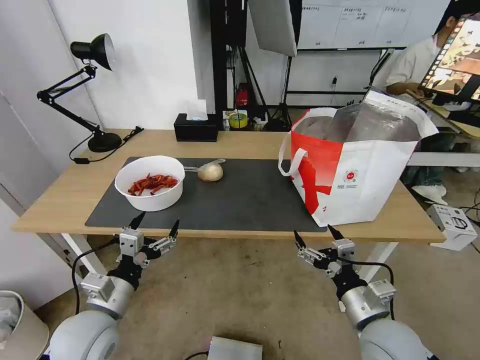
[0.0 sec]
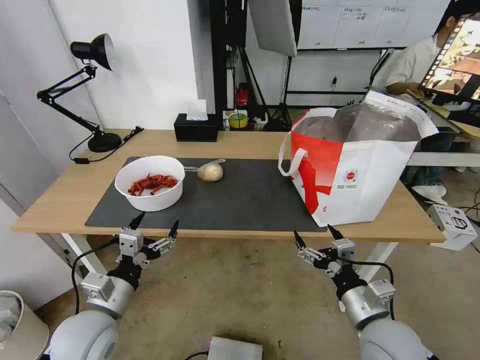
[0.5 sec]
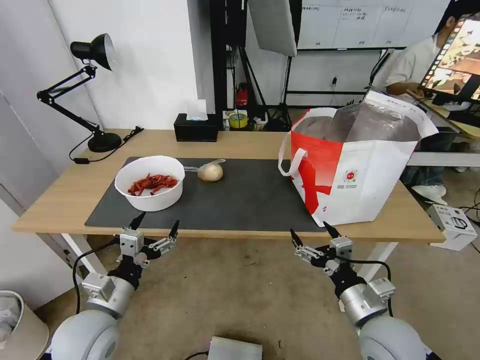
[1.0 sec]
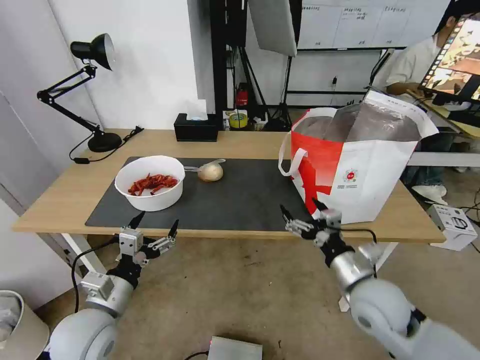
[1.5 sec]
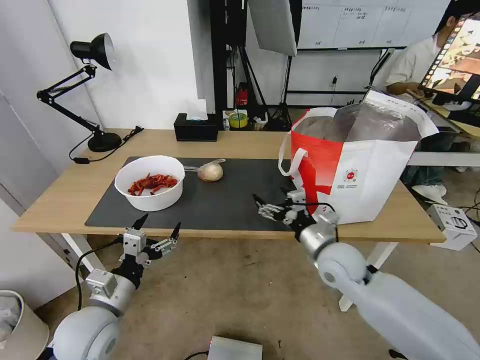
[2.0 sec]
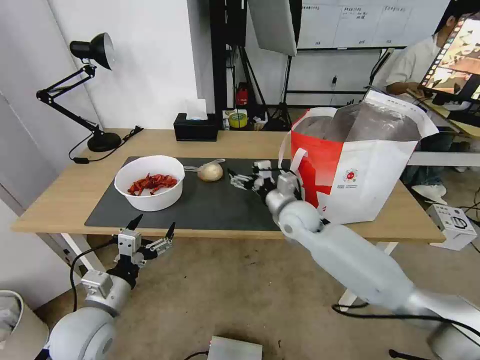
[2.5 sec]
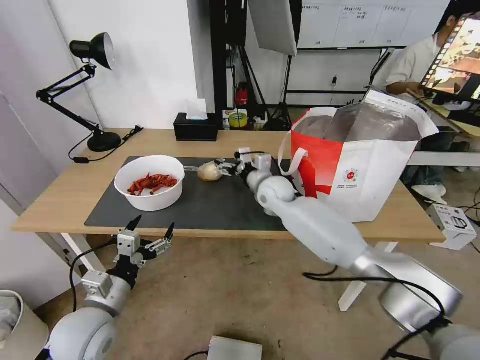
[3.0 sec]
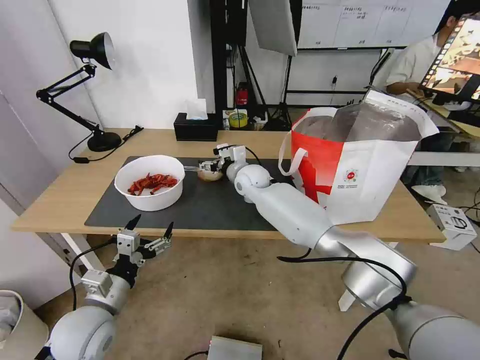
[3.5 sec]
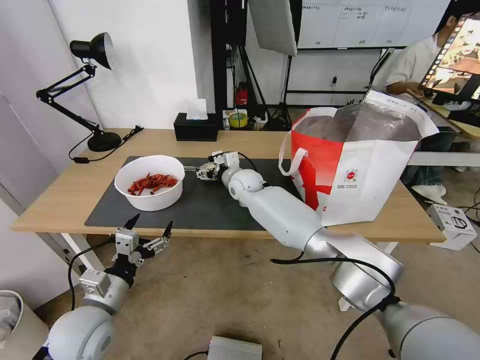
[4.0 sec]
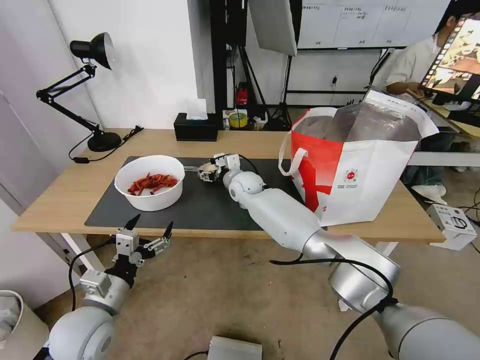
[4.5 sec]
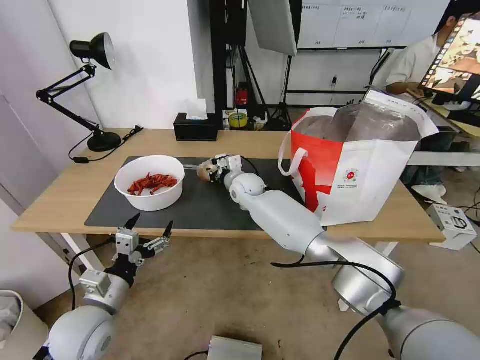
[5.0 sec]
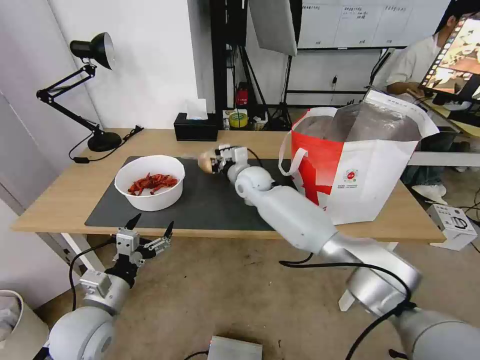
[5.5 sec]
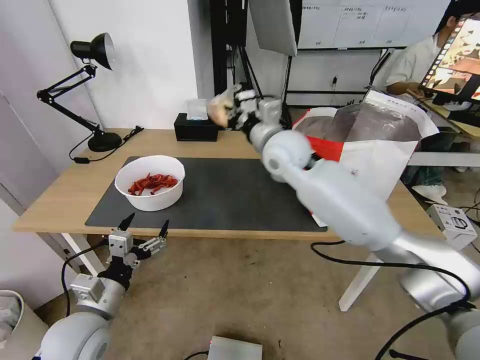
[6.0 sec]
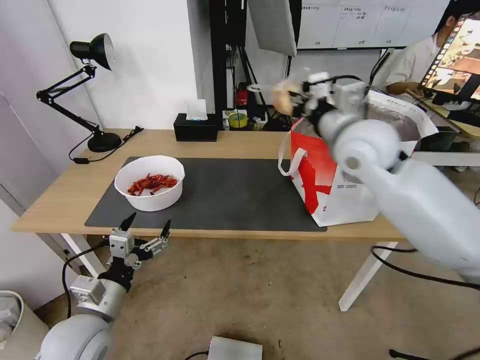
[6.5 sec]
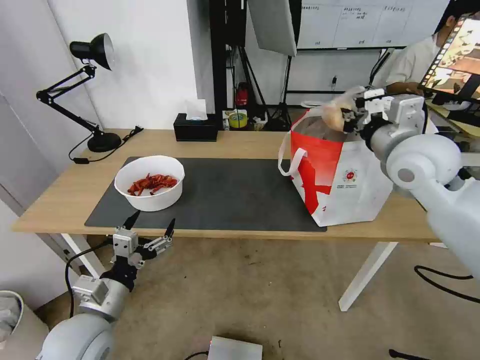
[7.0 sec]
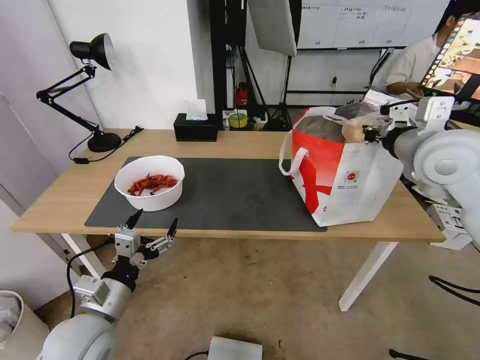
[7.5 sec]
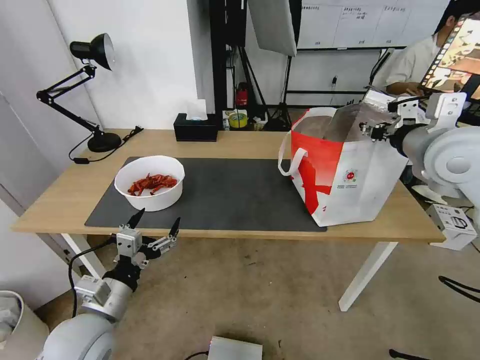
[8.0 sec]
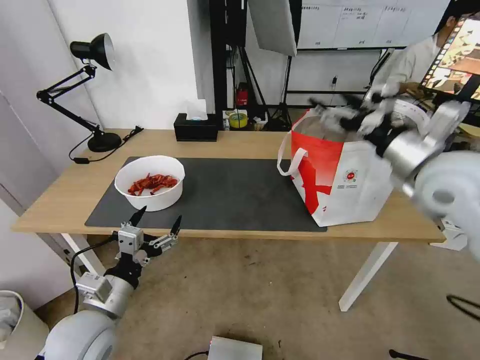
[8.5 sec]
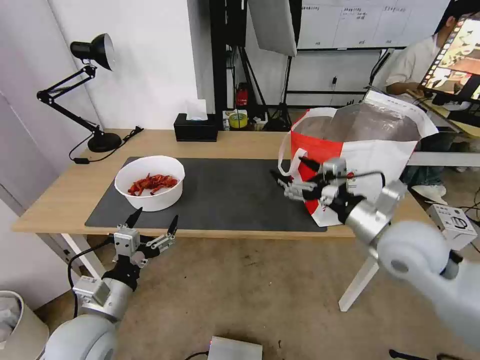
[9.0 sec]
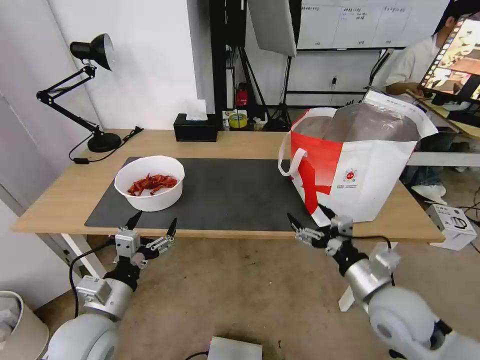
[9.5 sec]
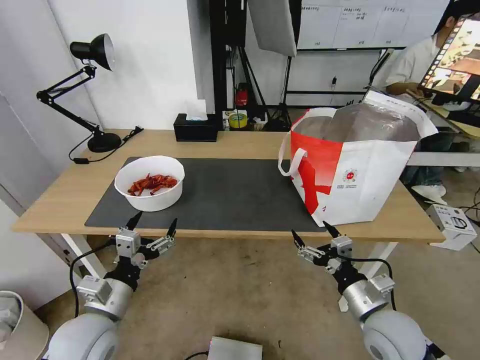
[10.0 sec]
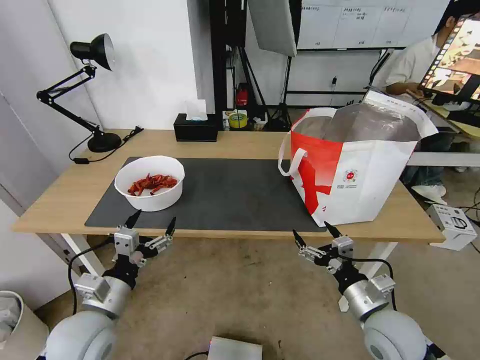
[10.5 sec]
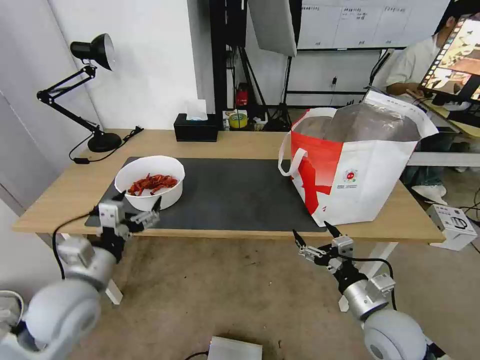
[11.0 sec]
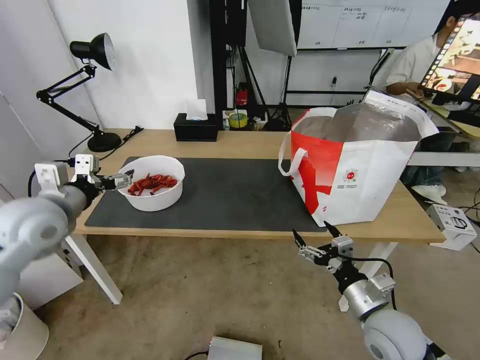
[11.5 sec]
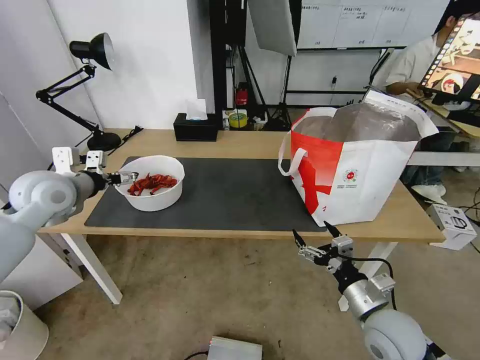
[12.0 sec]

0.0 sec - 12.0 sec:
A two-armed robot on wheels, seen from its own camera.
Task of the whole recording: Pick up the trash from the table and place it into the takeout bag.
0.0 sec - 2.0 sec: The right gripper goes approximately 15 cm forward.
2.0 sec - 4.0 sec: The right gripper heads forward and to the left, covering approximately 30 cm.
4.0 sec - 6.0 sec: The right gripper heads upward, backward and to the right, covering roughly 20 cm, and closes up.
6.0 sec - 8.0 sec: The right gripper heads to the right and backward, covering some 25 cm, and opens its fingers.
8.0 sec - 10.0 sec: The right gripper moves downward and backward, approximately 35 cm, and opens.
10.0 sec - 12.0 sec: The left gripper heads forward, upward and to the left, covering roughly 30 cm.

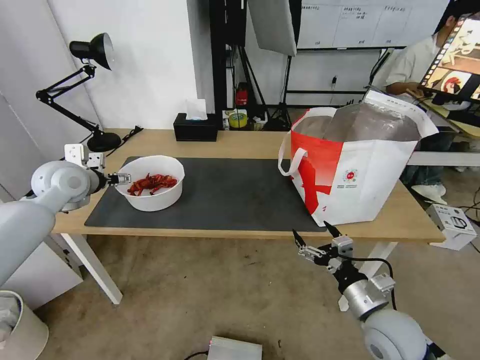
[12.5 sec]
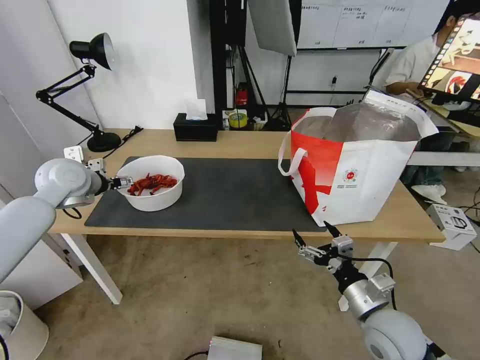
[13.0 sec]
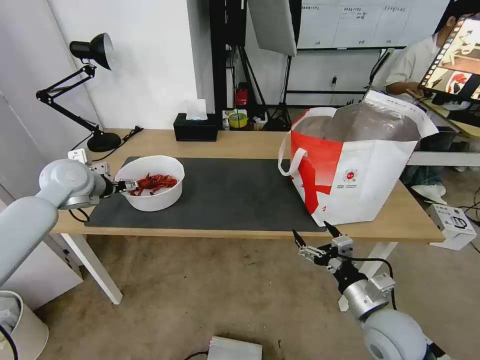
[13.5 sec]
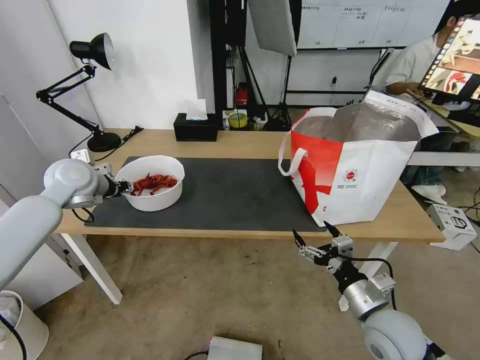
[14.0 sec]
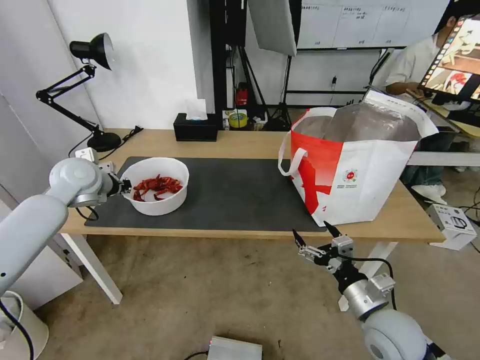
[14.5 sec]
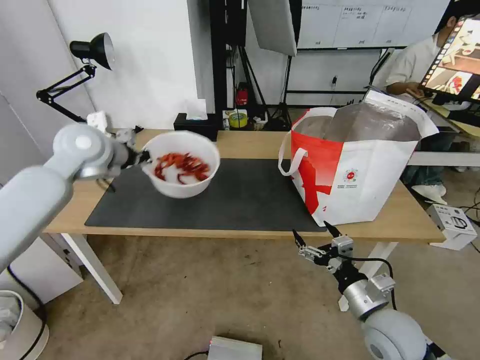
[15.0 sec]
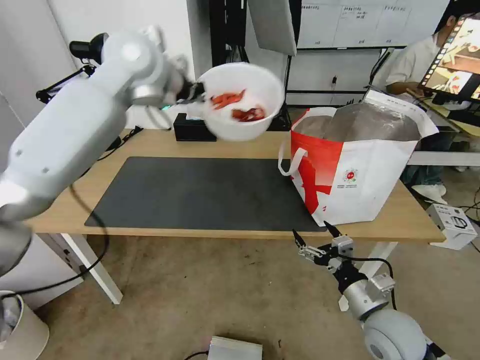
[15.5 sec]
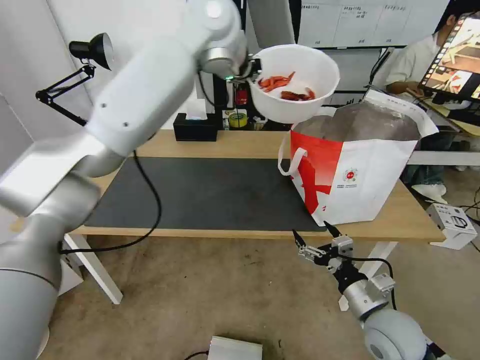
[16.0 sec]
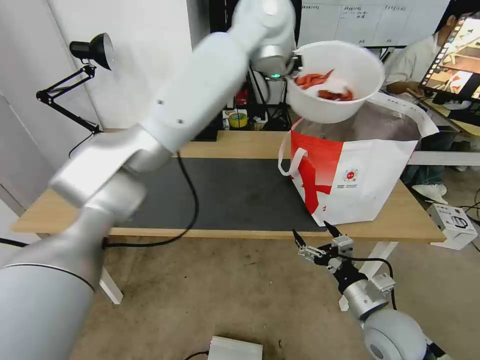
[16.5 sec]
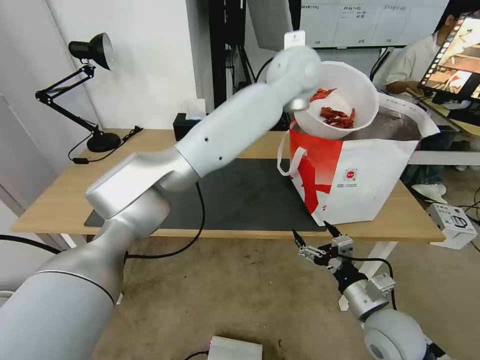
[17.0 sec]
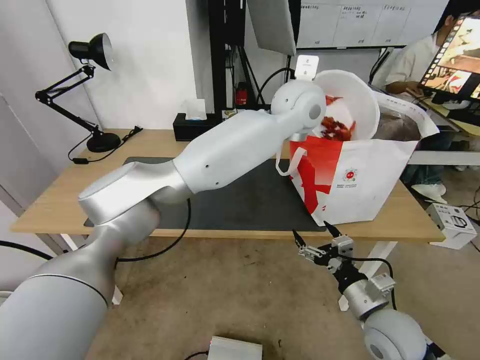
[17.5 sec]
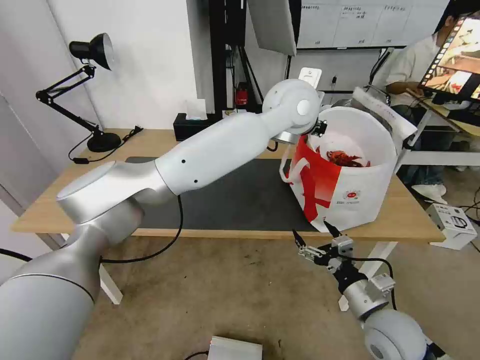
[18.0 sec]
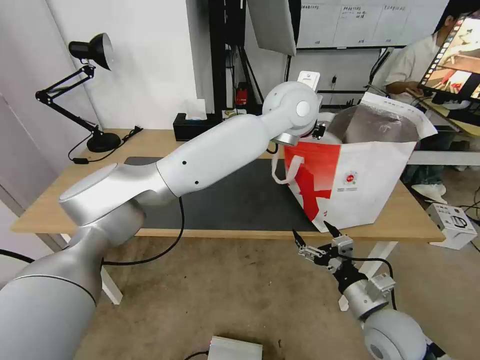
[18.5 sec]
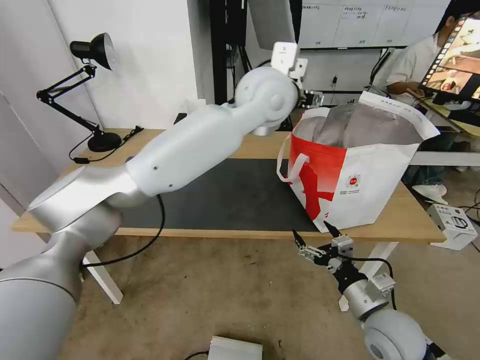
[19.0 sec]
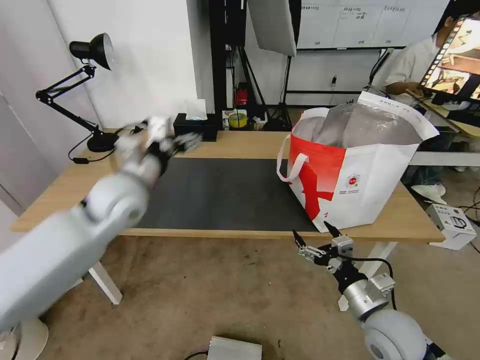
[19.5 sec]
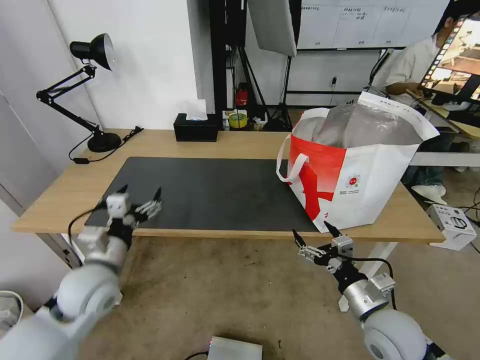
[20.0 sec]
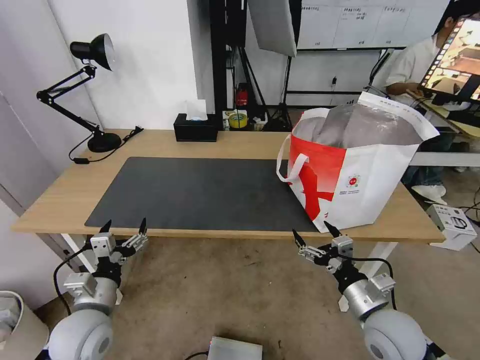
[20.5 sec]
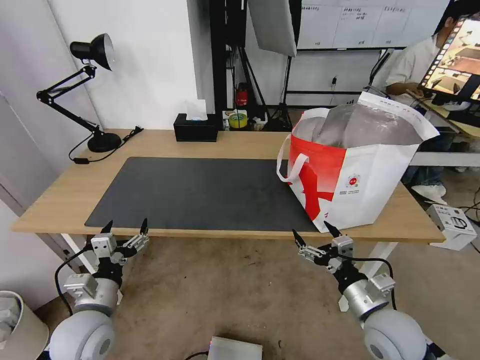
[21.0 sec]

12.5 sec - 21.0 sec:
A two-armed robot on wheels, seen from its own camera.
Task of the whole recording: Pick up the trash from the table and place it into the takeout bag.
12.5 sec - 14.5 sec: The left gripper closes.
14.5 sec - 16.5 sec: The left gripper travels to the right and upward by some 50 cm.
16.5 sec - 19.0 sec: The left gripper travels downward and backward by some 10 cm, and opens.
19.0 sec - 21.0 sec: The left gripper is displaced downward, to the left and backward by about 50 cm.

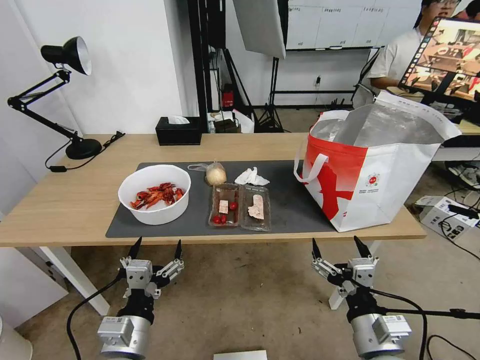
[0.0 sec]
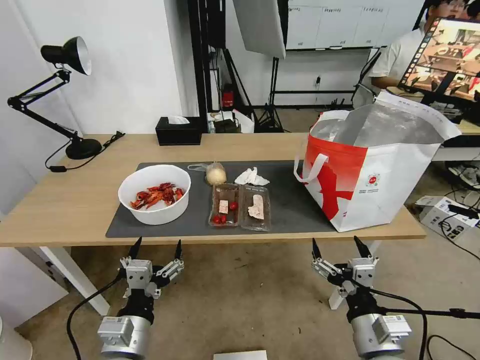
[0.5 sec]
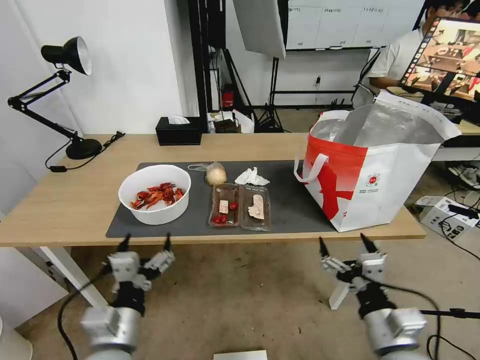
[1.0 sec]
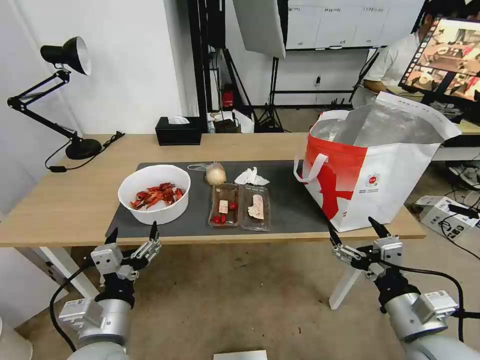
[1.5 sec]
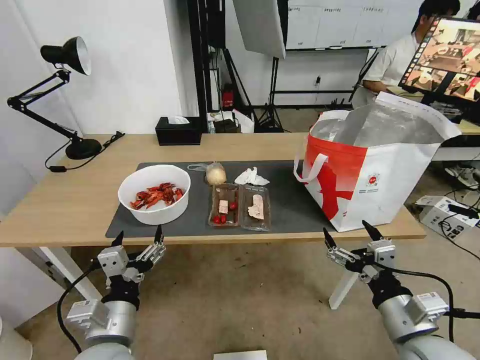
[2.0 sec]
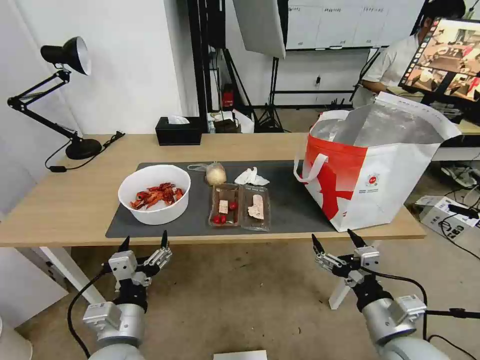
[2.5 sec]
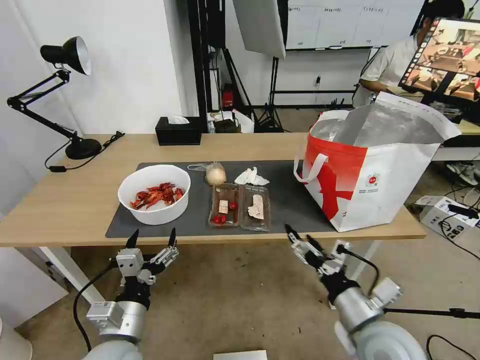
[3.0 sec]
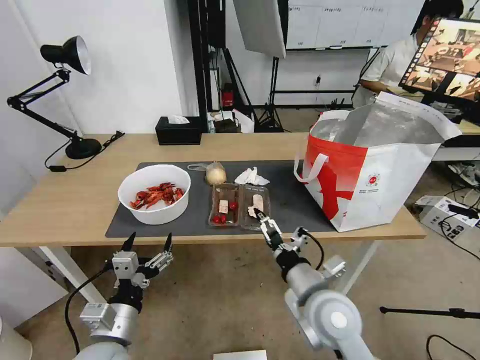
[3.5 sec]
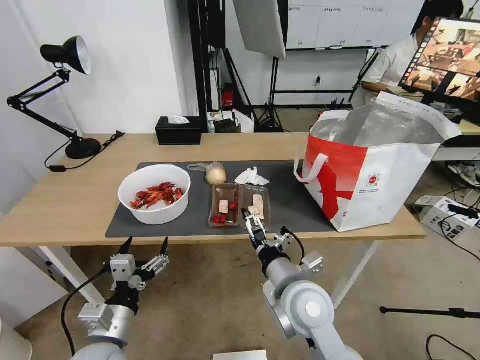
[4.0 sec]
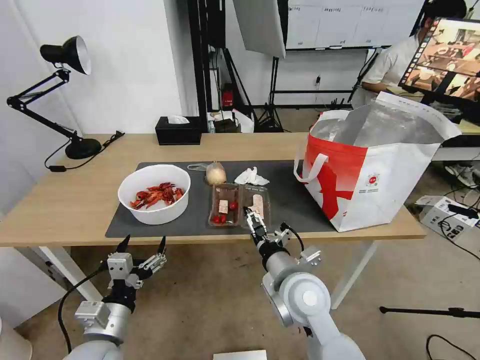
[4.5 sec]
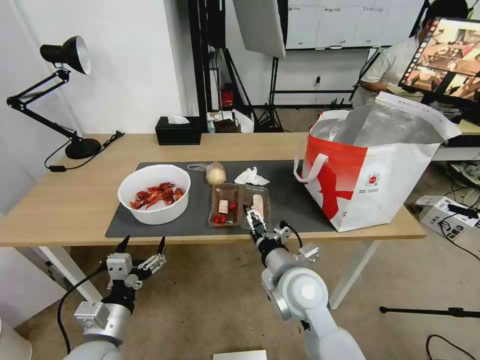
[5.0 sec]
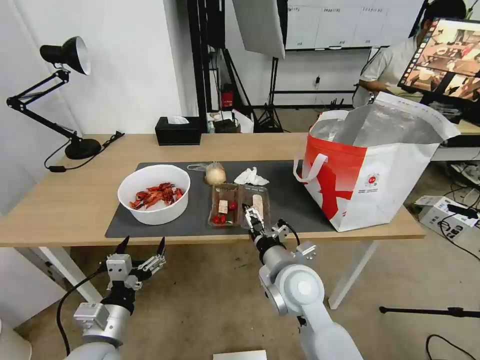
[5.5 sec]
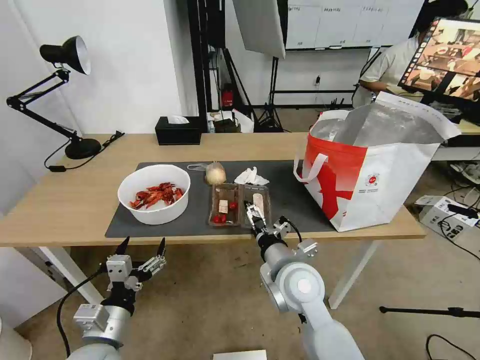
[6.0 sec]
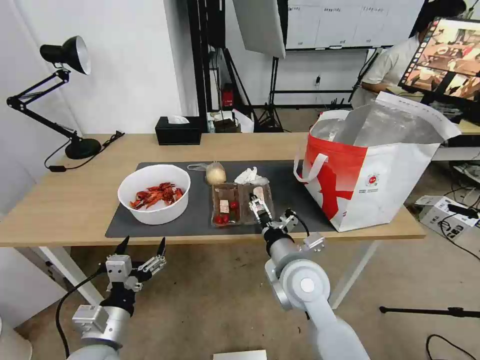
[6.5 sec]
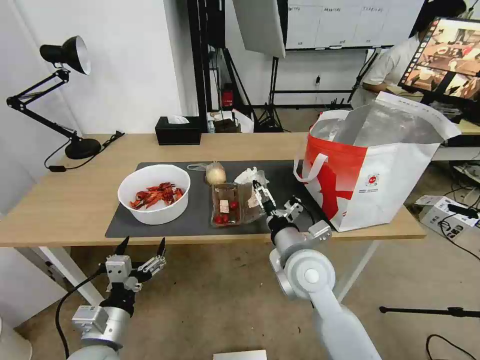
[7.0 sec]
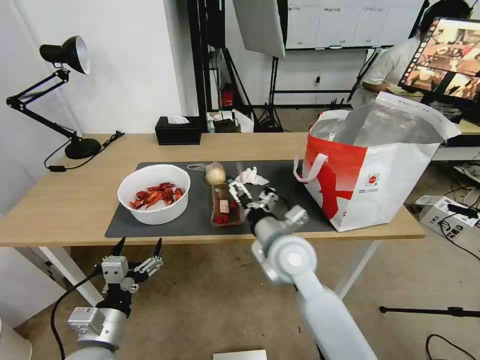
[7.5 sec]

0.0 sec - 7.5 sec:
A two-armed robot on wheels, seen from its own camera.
Task of the whole recording: Pick up the trash from the table and place it into the takeout bag.
2.0 sec - 4.0 sec: The left gripper is displaced downward by some 5 cm. The right gripper travels to the left and forward by some 20 cm.
4.0 sec - 5.5 sec: There are only small adjustments of the grippers.
5.5 sec - 7.5 sec: The right gripper shifts by roughly 5 cm.
